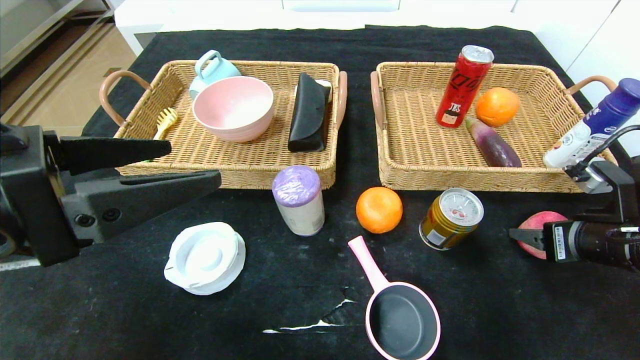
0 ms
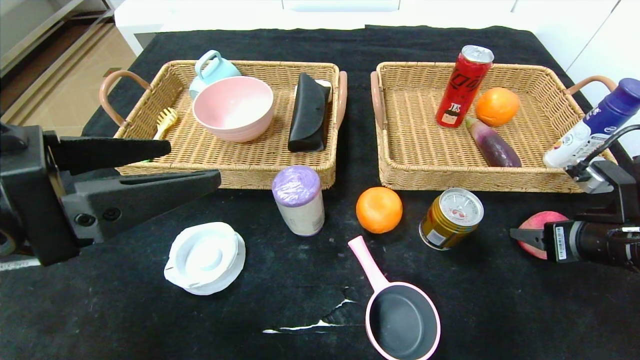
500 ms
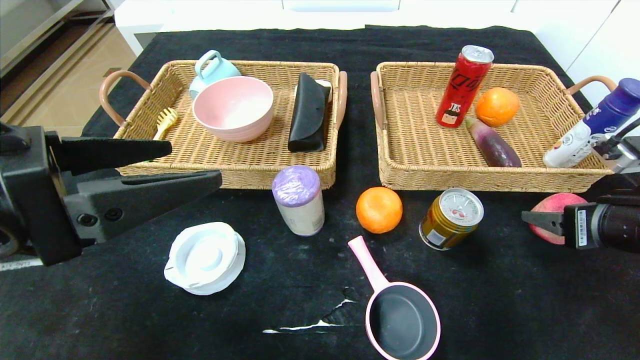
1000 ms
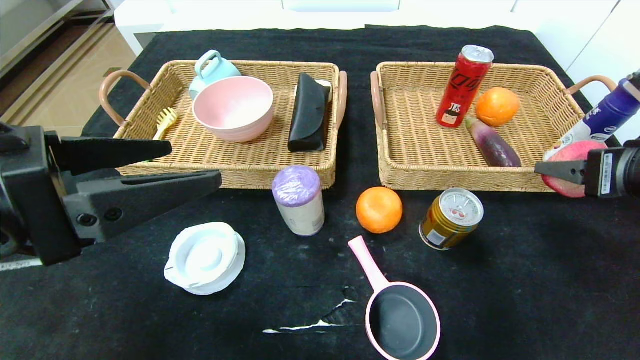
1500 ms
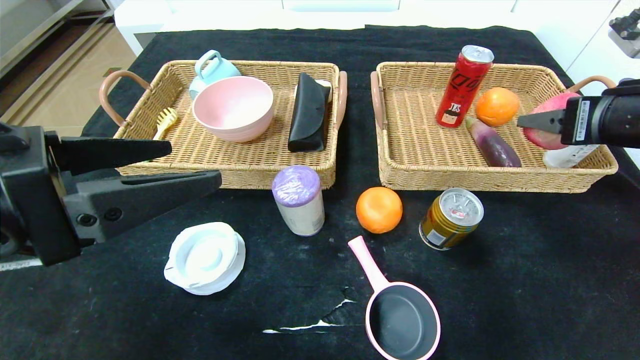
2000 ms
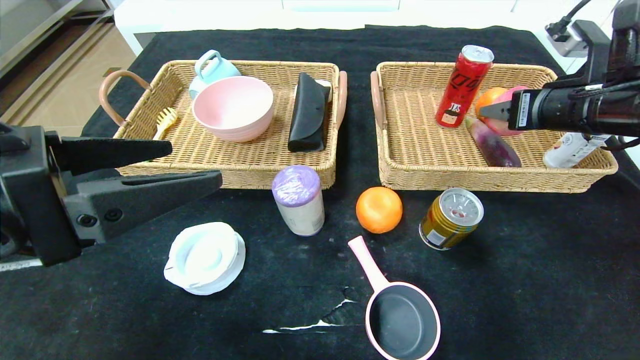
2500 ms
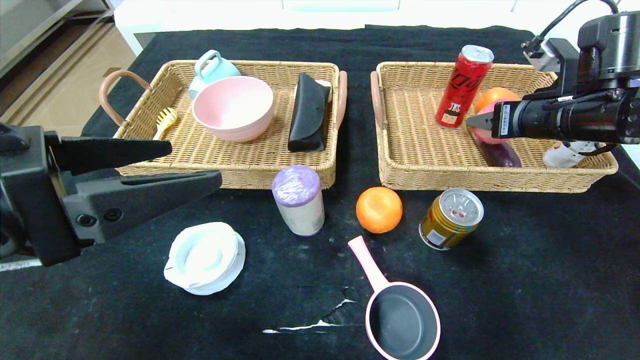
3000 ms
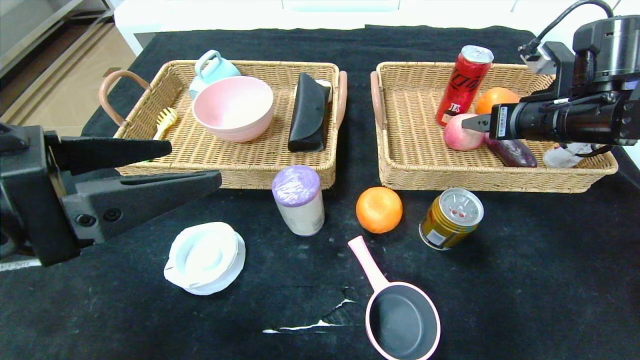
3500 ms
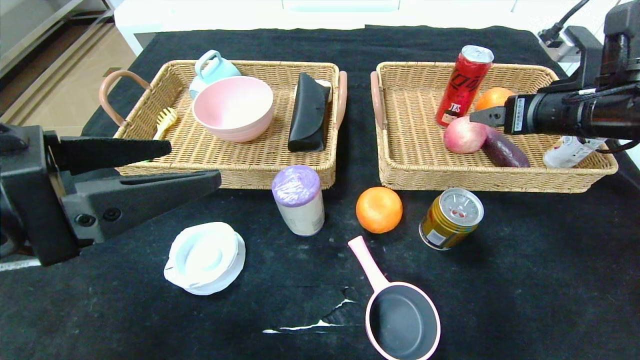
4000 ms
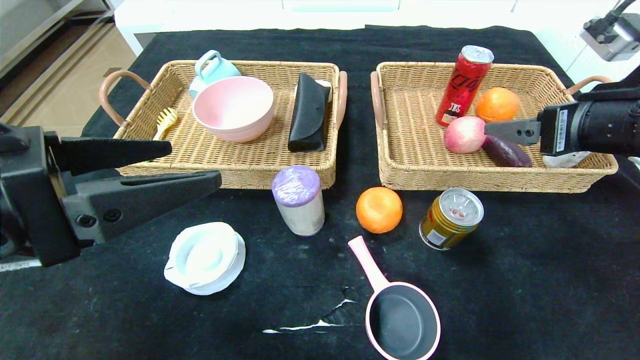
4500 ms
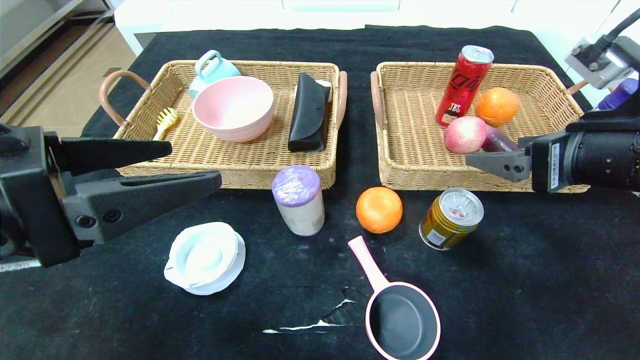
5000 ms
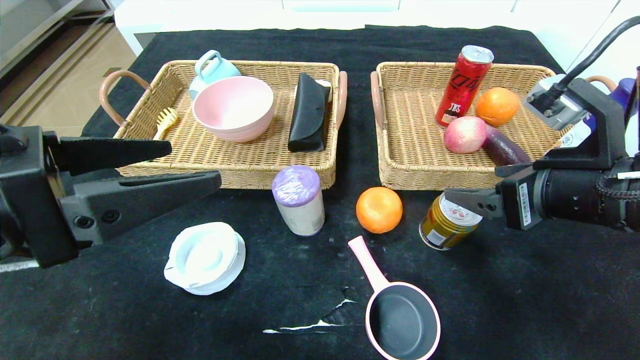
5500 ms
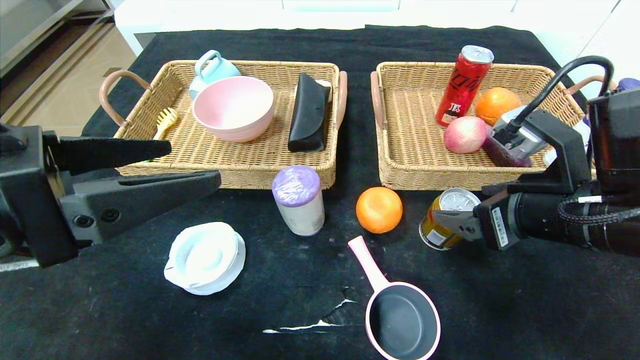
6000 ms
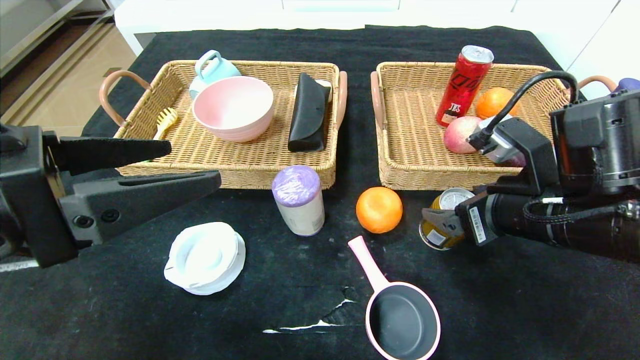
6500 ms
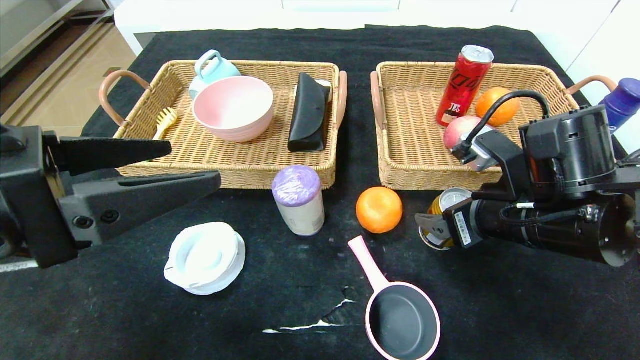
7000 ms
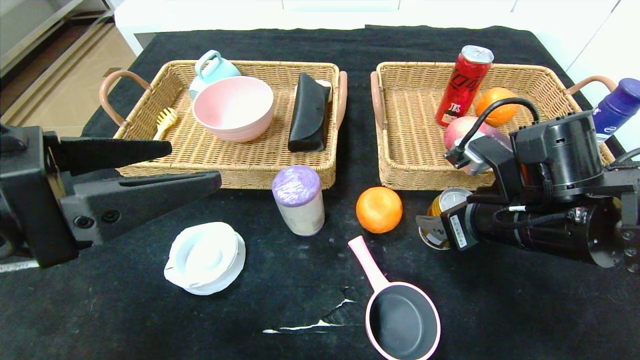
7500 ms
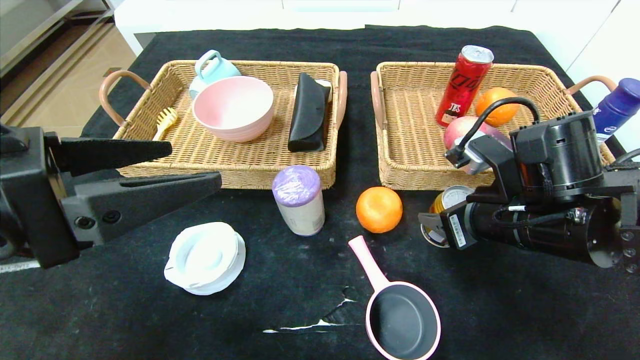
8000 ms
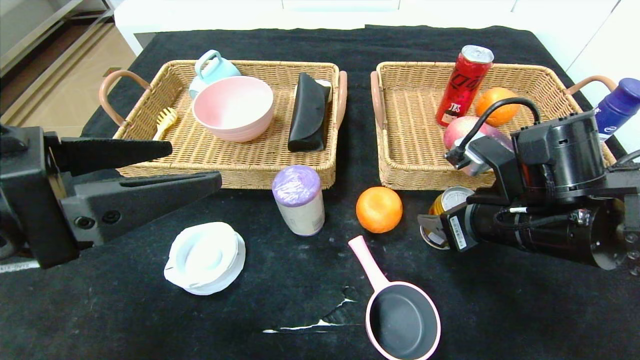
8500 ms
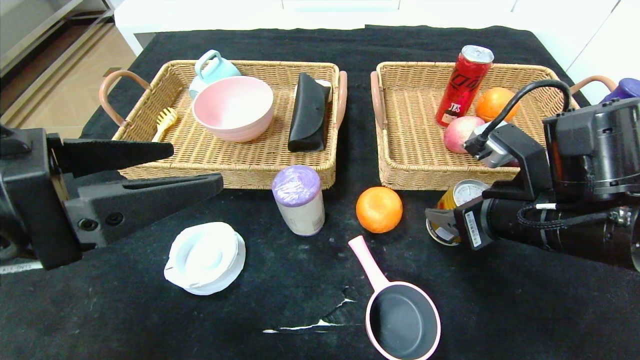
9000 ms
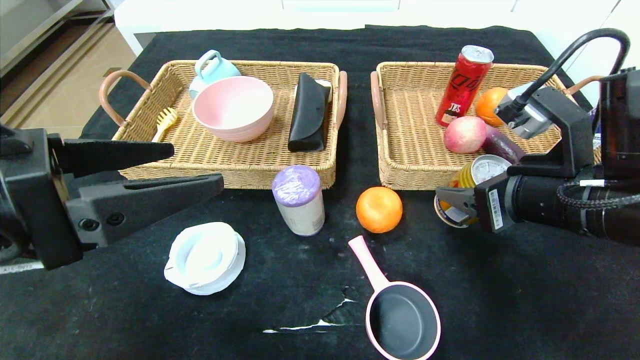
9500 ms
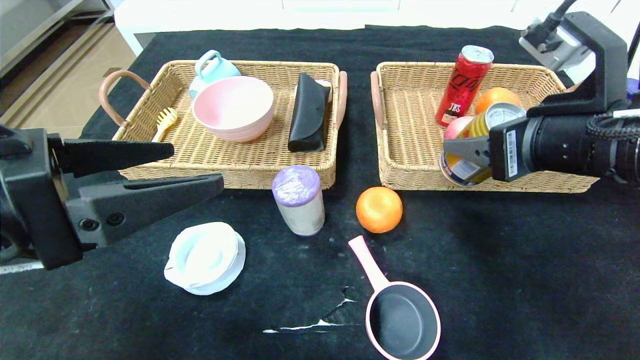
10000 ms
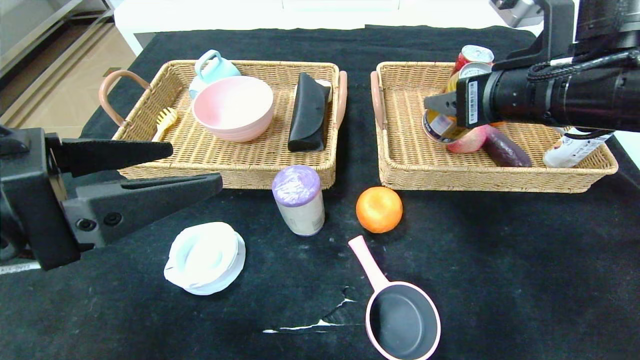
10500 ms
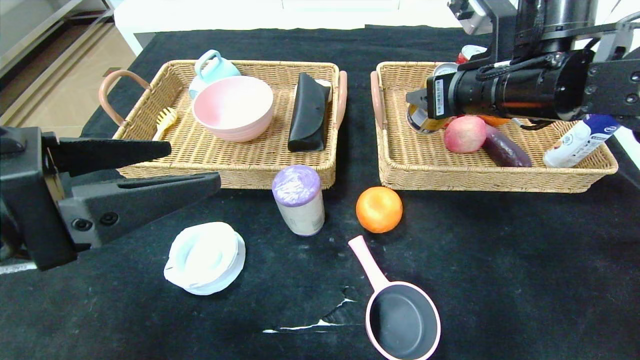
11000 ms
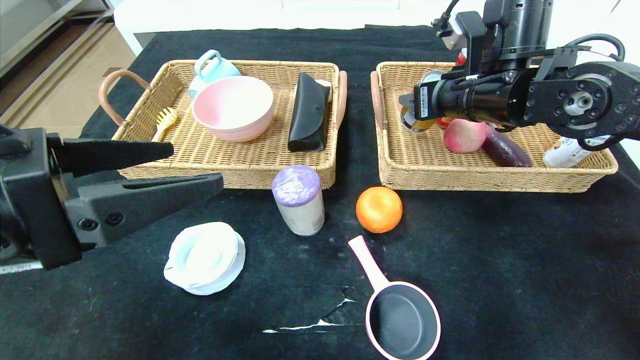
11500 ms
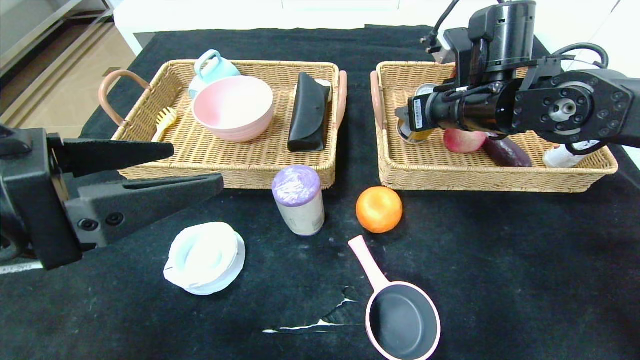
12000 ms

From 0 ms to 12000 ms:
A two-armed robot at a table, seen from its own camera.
Step, from 0 ms to 5500 ms: Pick up the peach and put it in the right basket.
From 0 ms to 2000 ms: The right gripper is displaced upward by approximately 15 cm.
From 2000 ms to 4000 ms: The right gripper heads forward, covering about 5 cm, and opens up.
From 4000 ms to 6000 ms: The right gripper heads backward, to the left and downward, covering approximately 15 cm.
From 6000 ms to 8000 ms: The right gripper shifts by about 5 cm, and closes up.
From 8000 ms to 10000 ms: The right gripper moves upward, roughly 10 cm.
From 10000 ms to 12000 ms: The right gripper moves forward, about 15 cm.

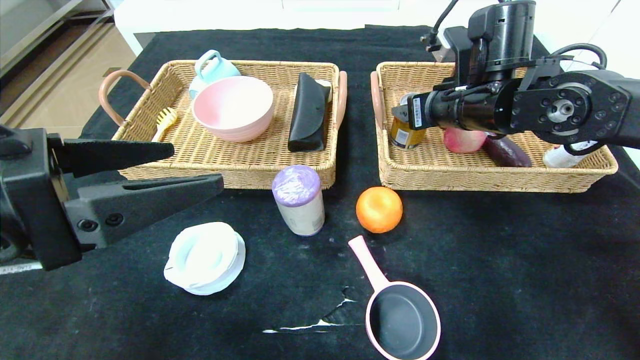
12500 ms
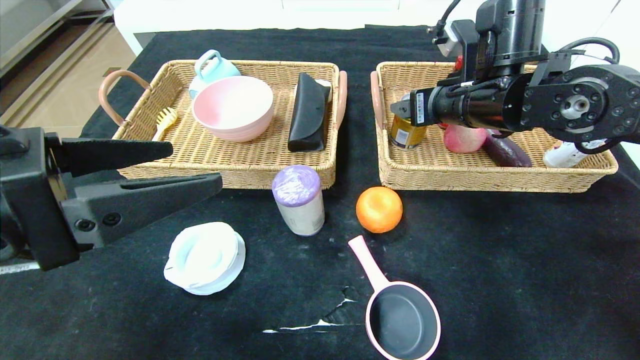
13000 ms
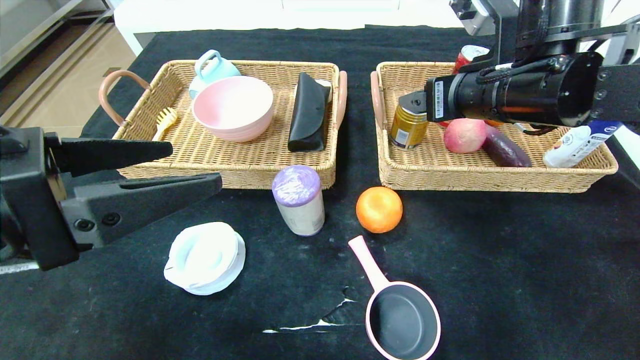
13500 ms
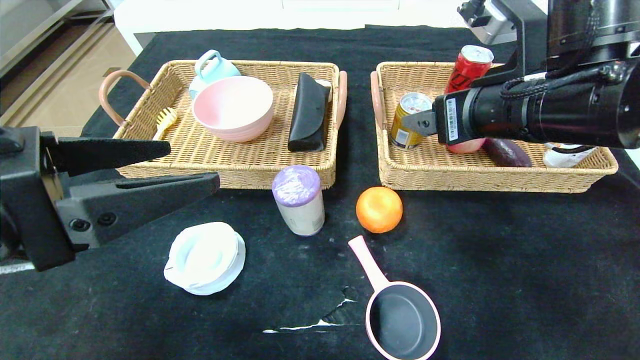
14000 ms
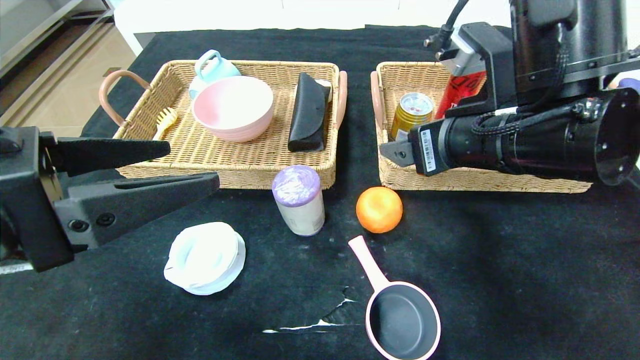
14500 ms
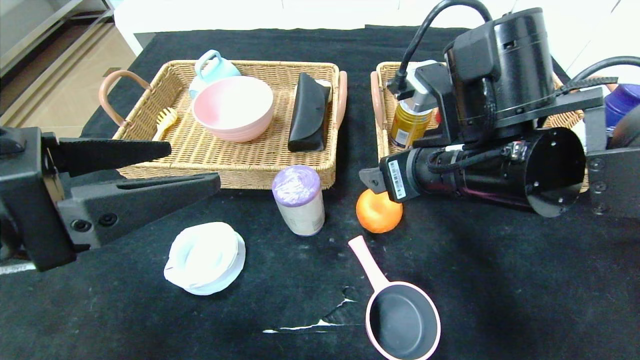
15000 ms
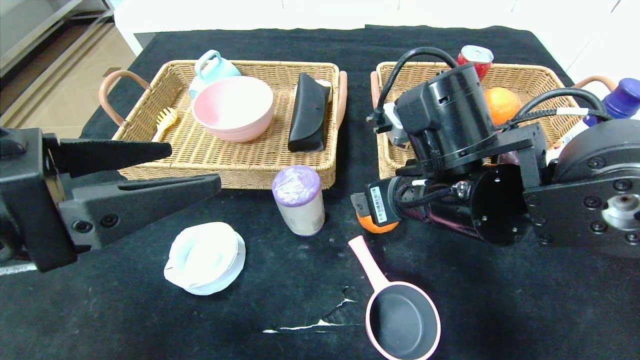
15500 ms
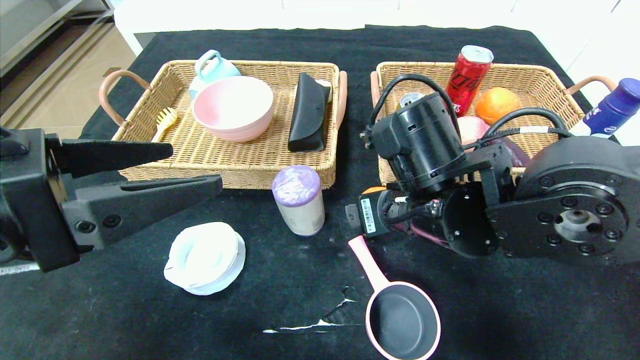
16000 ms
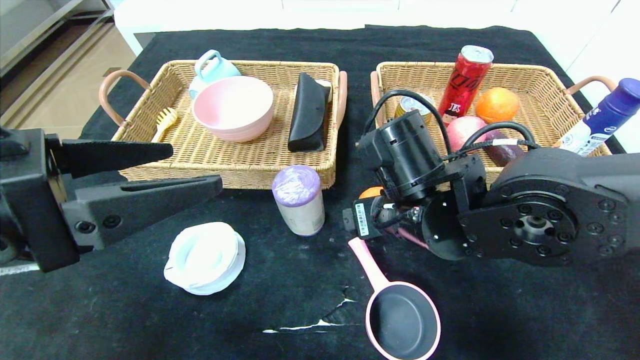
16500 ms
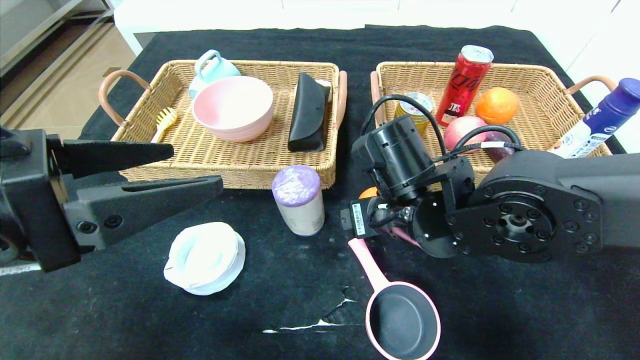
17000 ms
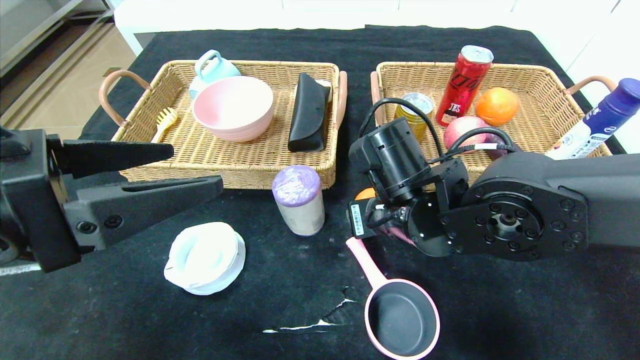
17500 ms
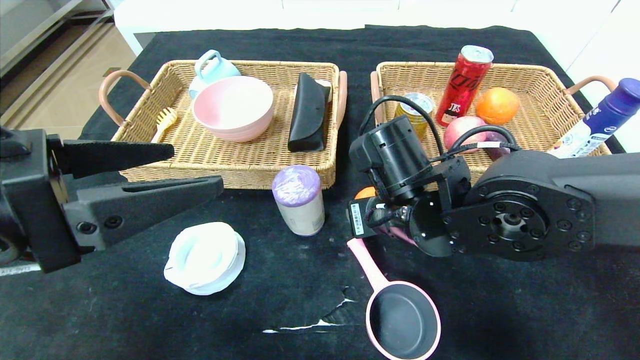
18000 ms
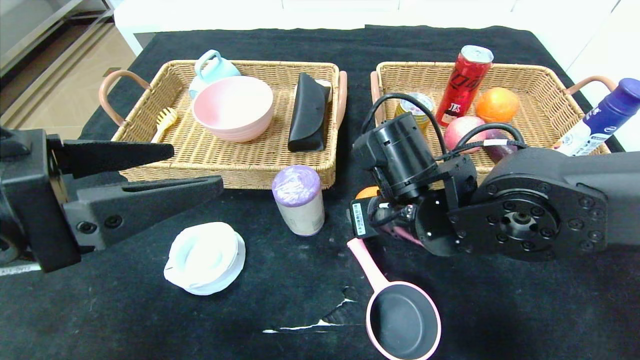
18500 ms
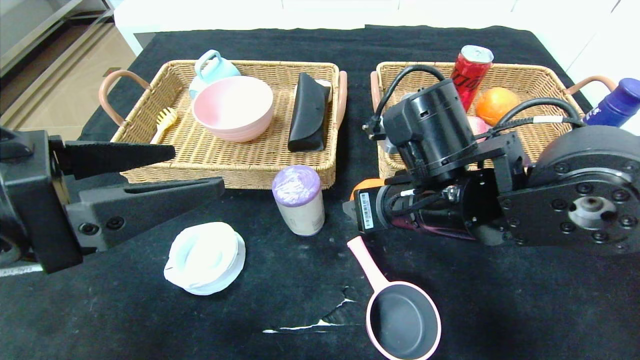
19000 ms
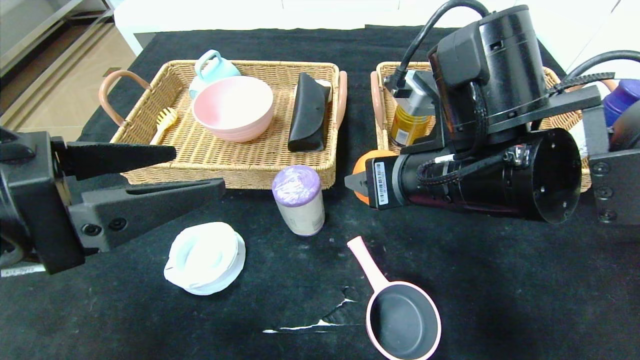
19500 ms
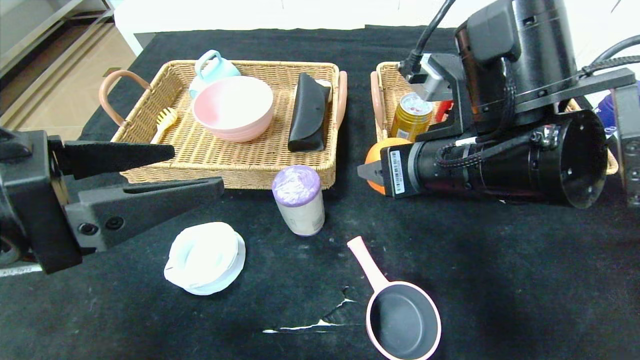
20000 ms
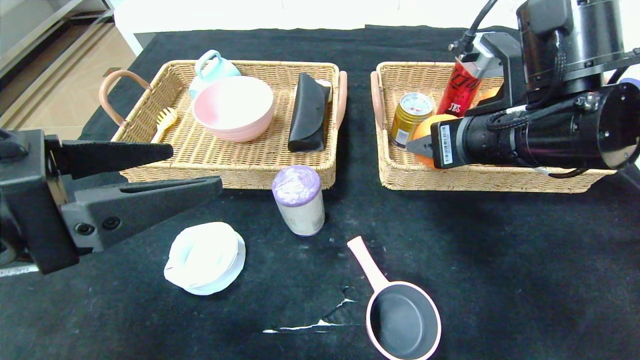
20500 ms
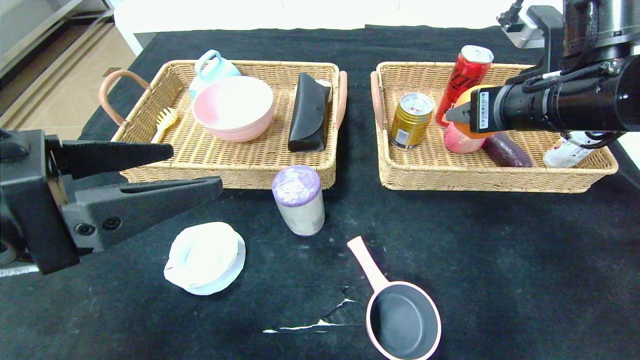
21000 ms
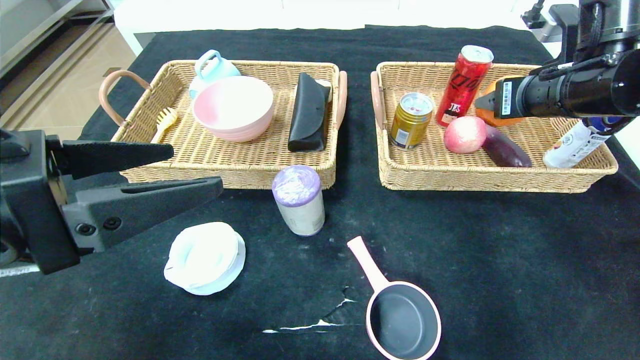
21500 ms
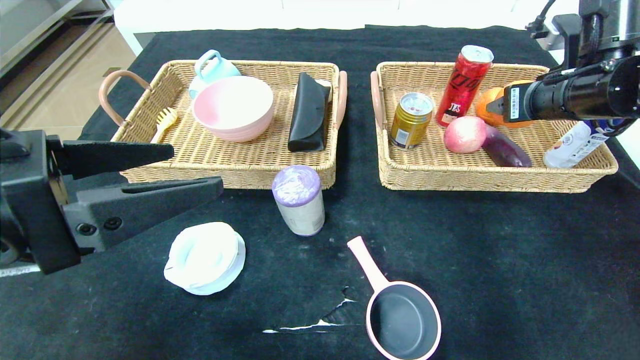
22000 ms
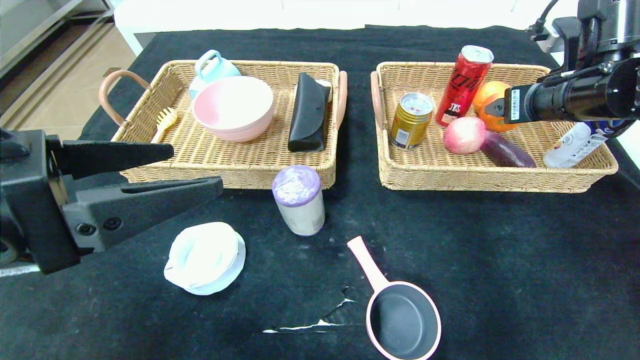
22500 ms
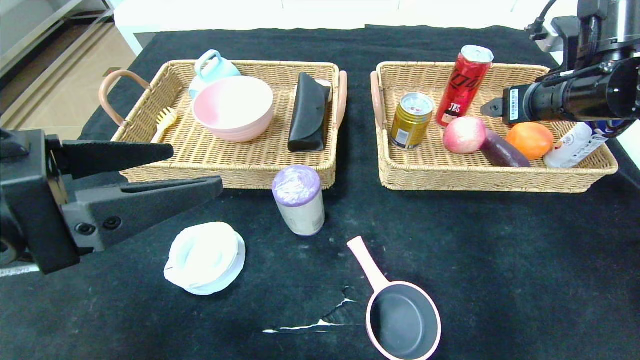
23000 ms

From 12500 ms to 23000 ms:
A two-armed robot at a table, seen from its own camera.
Step, from 12500 ms to 15500 ms: Pick up the red bull and put it in the right basket.
From 12500 ms to 14500 ms: The right gripper goes roughly 15 cm backward, and opens.
From 14500 ms to 16500 ms: The right gripper heads downward and to the left, covering some 10 cm.
From 16500 ms to 19000 ms: The right gripper closes its fingers.
From 19000 ms to 21000 ms: The right gripper heads to the right and upward, covering about 15 cm.
From 21000 ms to 23000 ms: The right gripper moves to the right, roughly 5 cm, and opens.
